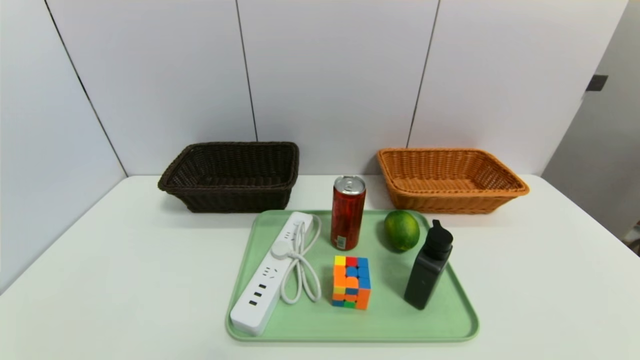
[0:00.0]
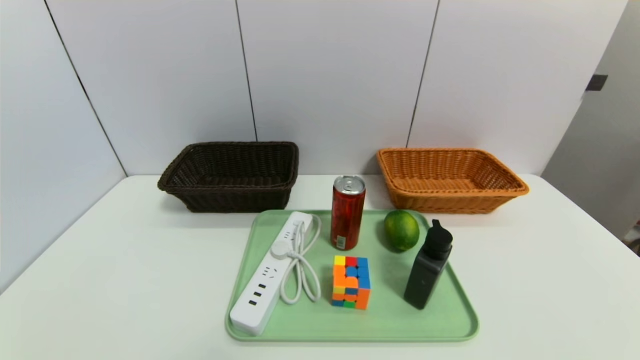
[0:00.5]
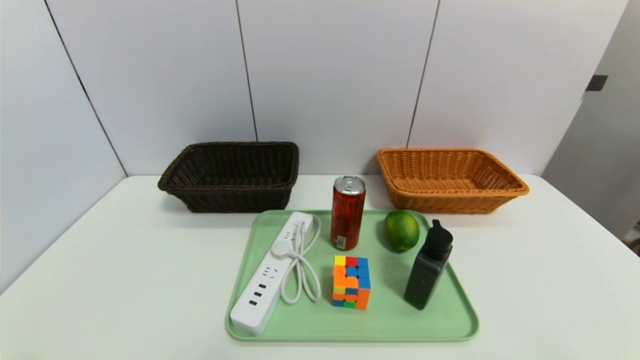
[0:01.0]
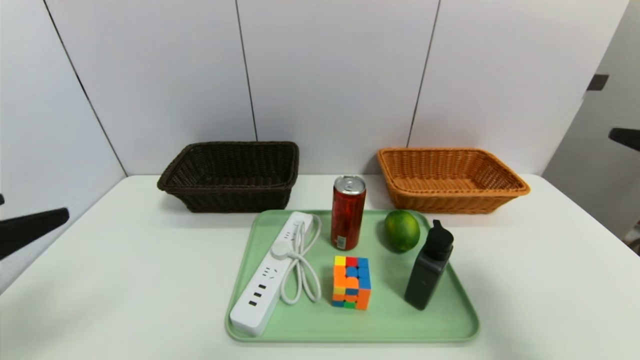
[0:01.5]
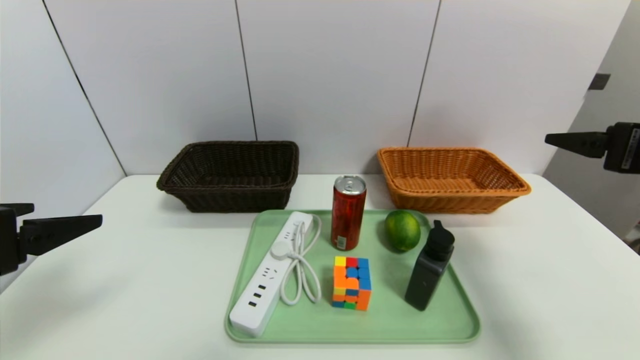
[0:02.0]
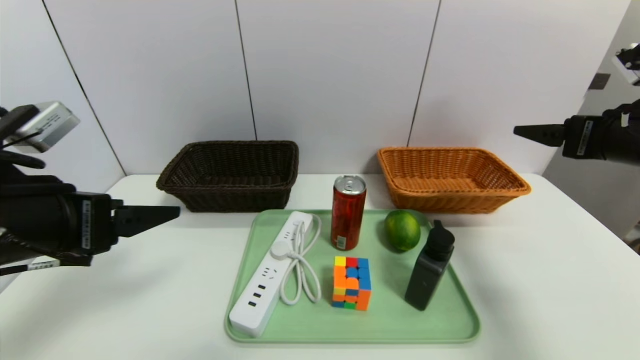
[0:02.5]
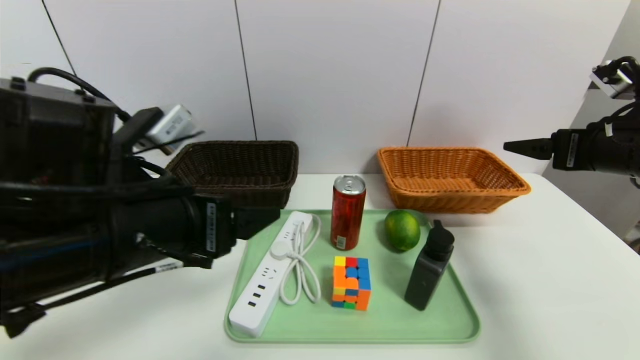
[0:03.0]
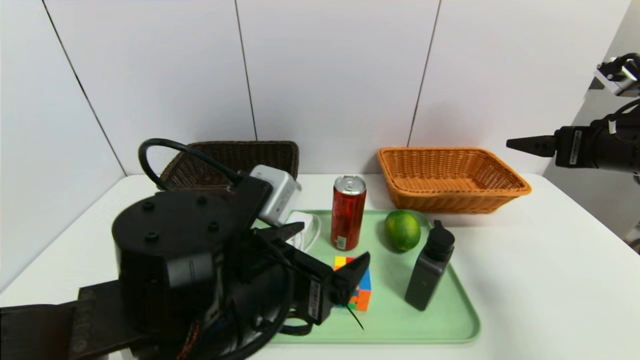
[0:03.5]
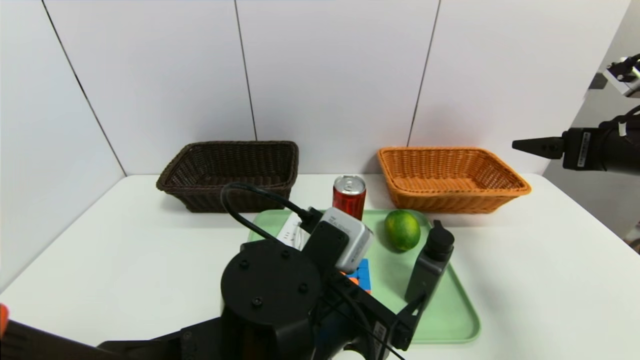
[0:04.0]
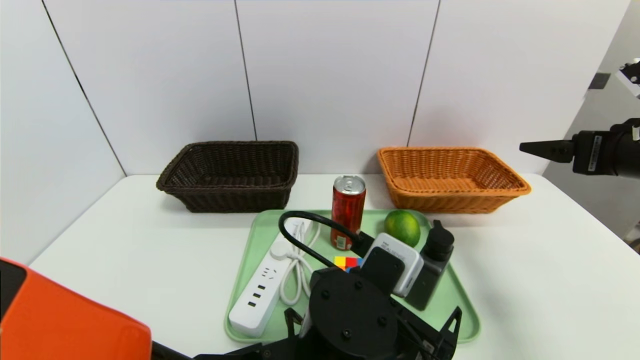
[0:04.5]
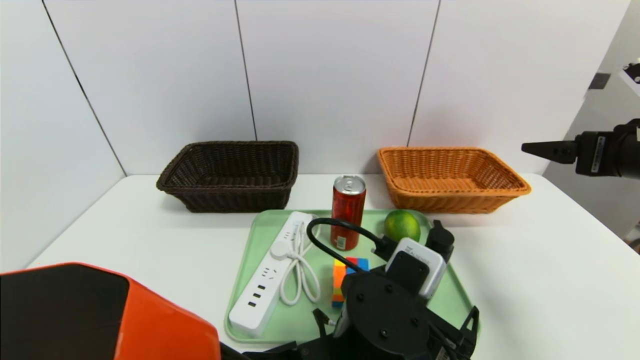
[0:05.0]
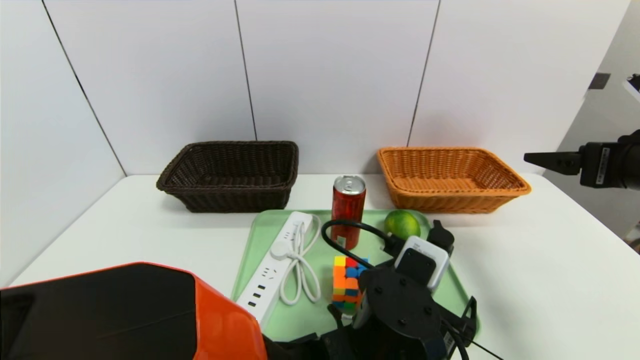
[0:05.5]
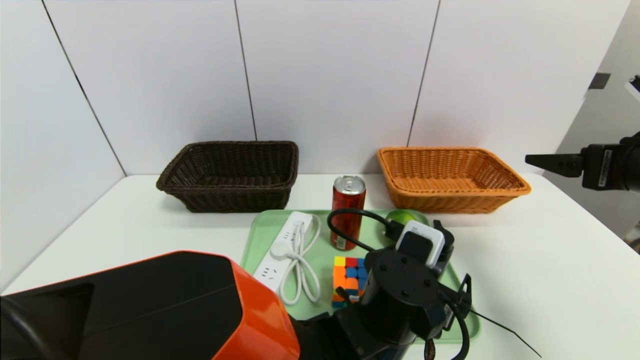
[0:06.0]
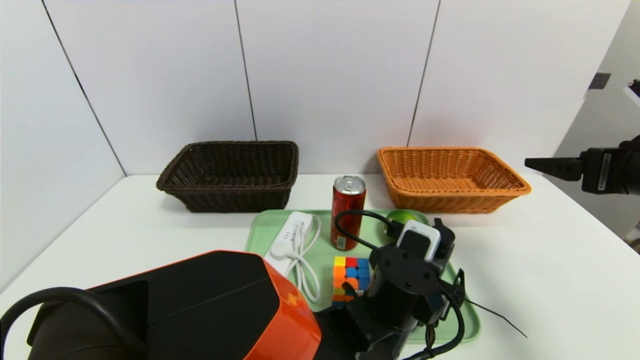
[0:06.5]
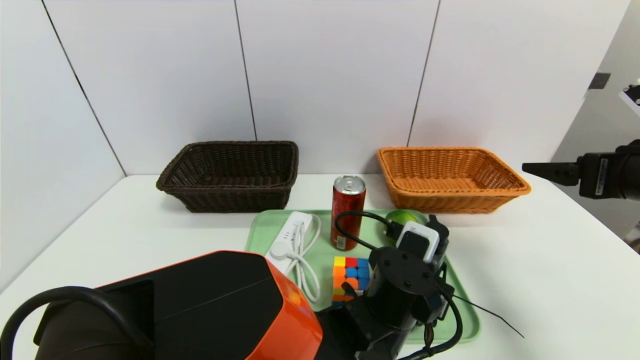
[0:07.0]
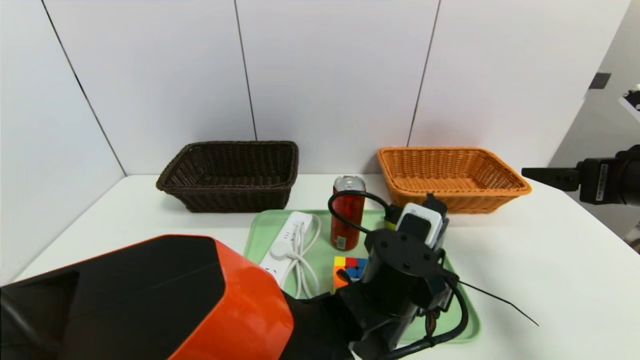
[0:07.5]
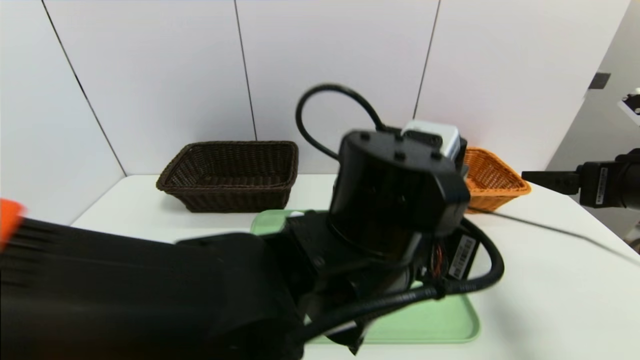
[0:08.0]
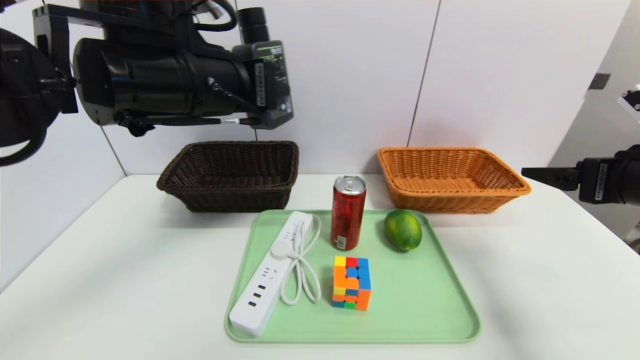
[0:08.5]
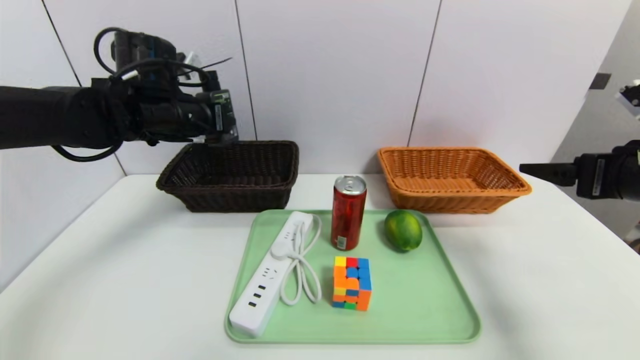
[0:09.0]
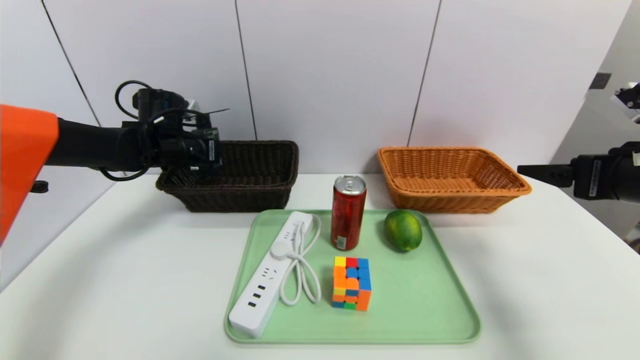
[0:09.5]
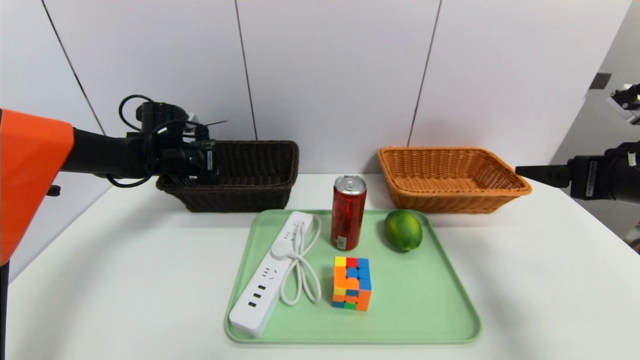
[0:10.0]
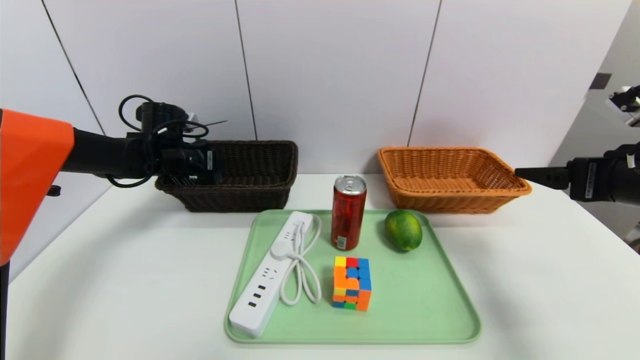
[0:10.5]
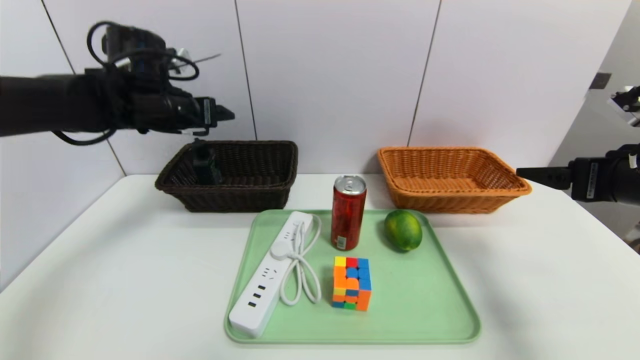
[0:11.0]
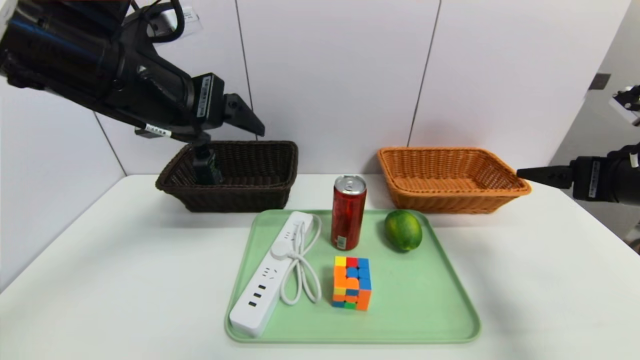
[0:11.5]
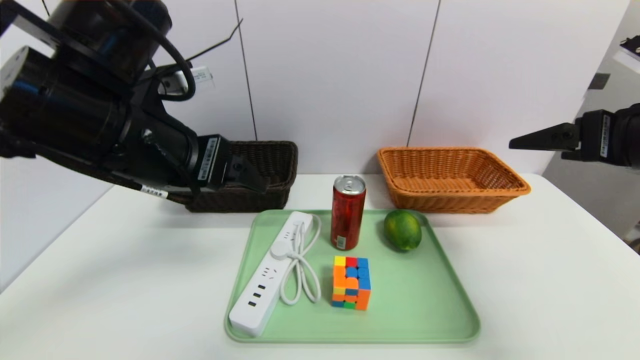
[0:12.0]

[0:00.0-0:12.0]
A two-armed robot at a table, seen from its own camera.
Task of the whole recording: place the food in the right basket with the right gripper, and place the non food items in the left basket with the left gripper.
Step, 0:00.0 to 0:10.5: Grasp the soft cleanser and put it in the left basket.
0:00.0 to 0:02.0: The left gripper travels upward and forward by roughly 25 cm; the right gripper goes about 30 cm forward and upward.
0:02.0 to 0:04.0: The left gripper travels to the right and downward by some 30 cm.
0:04.0 to 0:06.0: The left gripper shifts approximately 15 cm to the right, downward and forward.
0:06.0 to 0:08.0: The left gripper heads upward, covering approximately 15 cm, and closes.
0:08.0 to 0:10.0: The left gripper shifts approximately 40 cm to the left and forward.
0:10.0 to 0:12.0: The right gripper goes some 5 cm upward, while the left gripper shifts roughly 30 cm backward, upward and to the right, and opens its fingers.

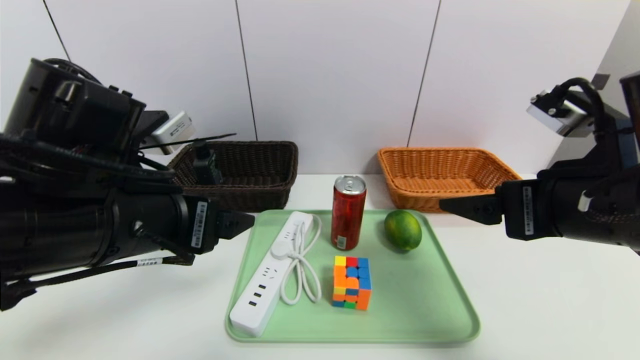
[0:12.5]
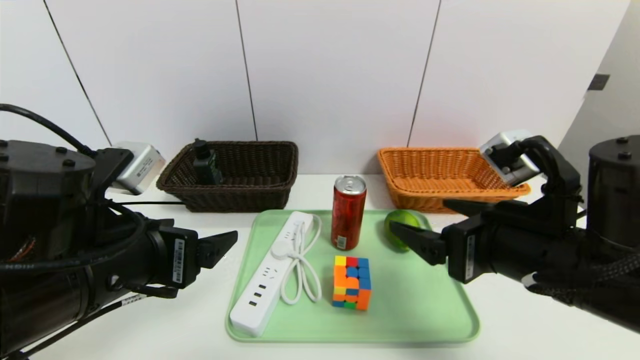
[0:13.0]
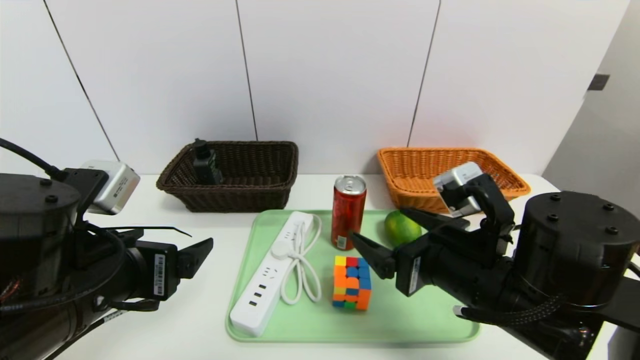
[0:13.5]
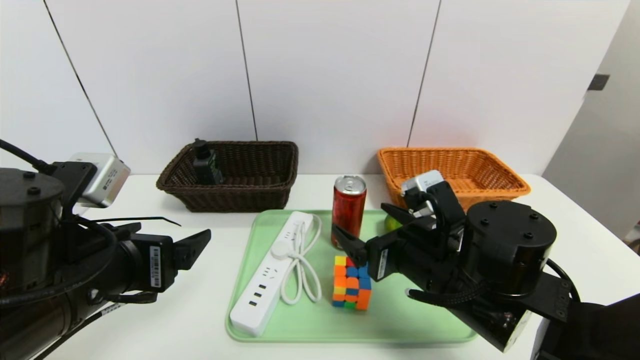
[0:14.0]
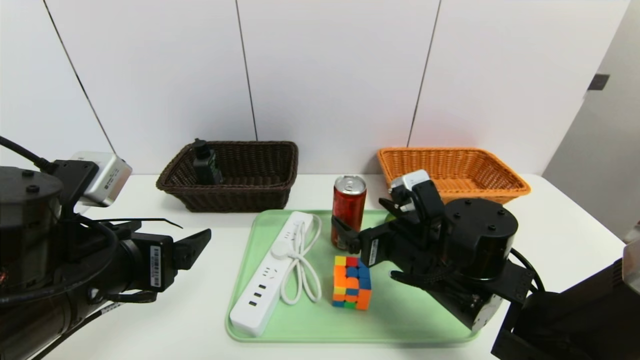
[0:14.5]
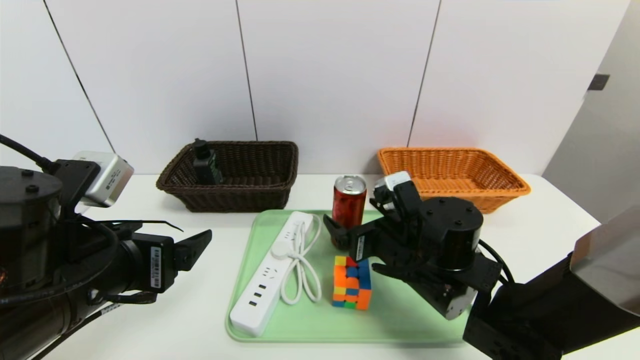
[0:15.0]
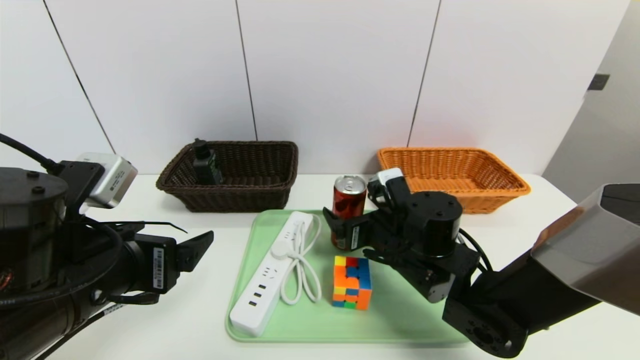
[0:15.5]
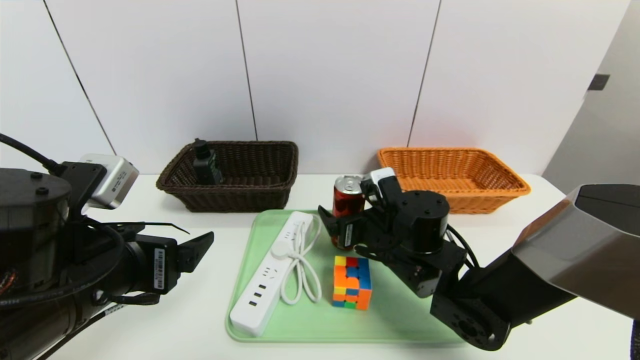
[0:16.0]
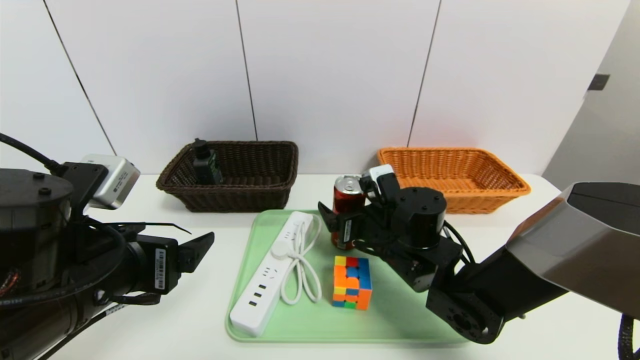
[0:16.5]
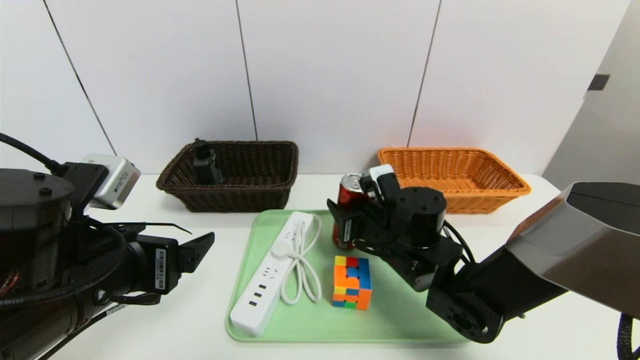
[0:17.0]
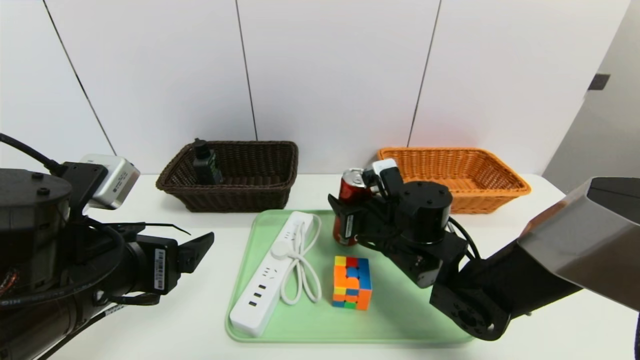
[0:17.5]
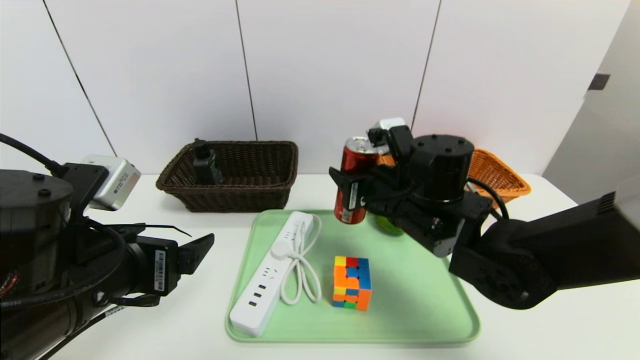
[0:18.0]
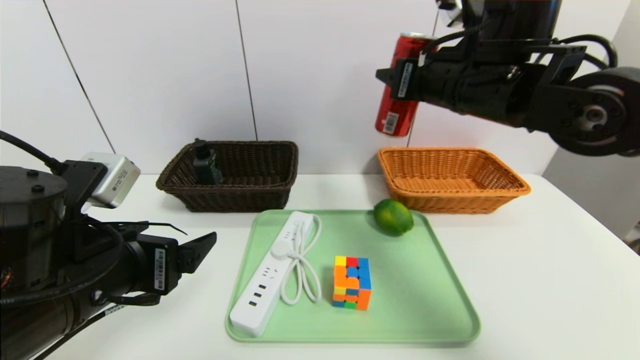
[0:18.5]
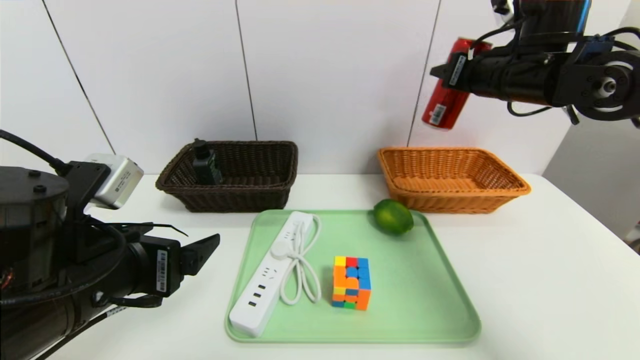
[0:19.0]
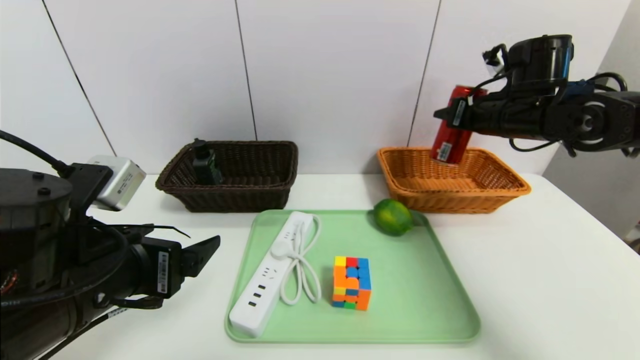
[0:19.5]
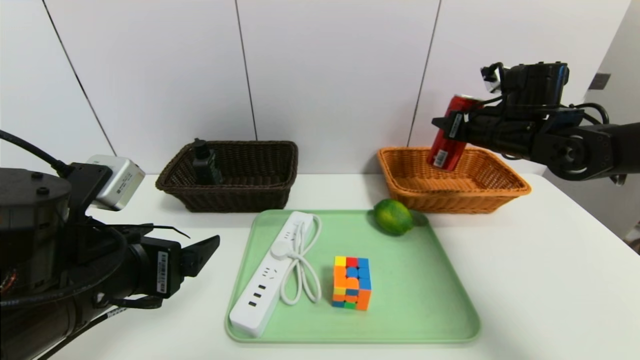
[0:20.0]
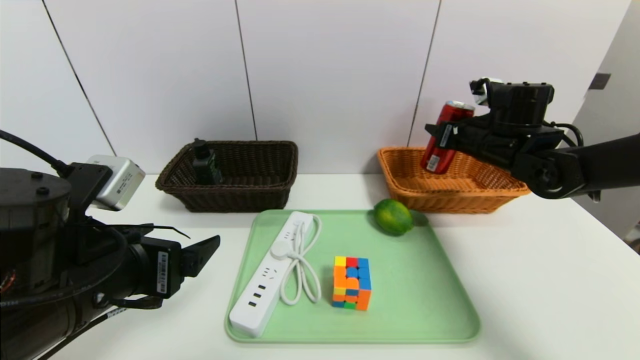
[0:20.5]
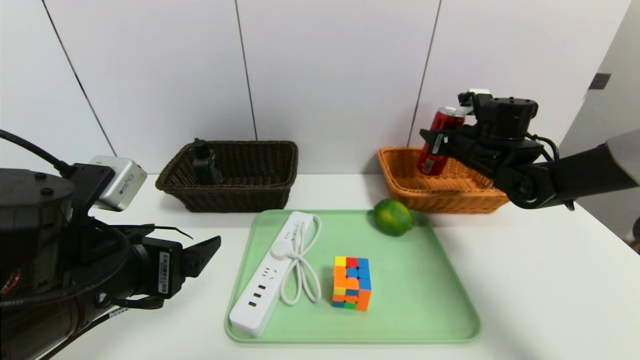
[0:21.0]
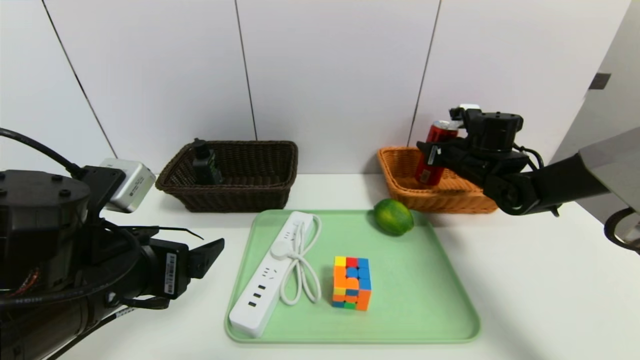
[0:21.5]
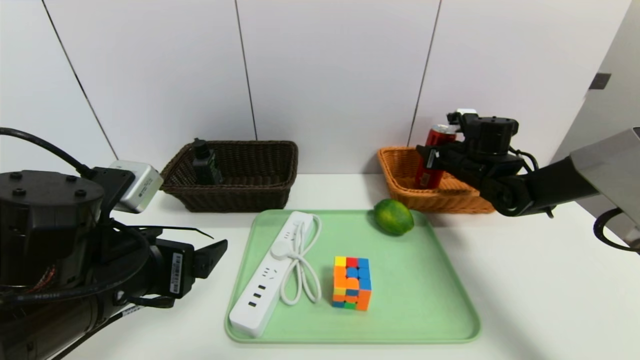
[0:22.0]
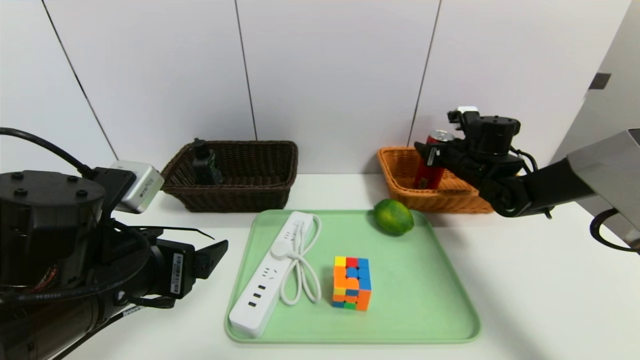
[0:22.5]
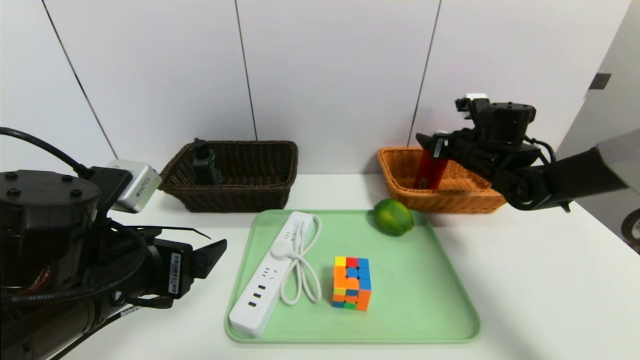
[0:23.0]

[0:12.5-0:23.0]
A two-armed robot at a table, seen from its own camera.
Task of the whole recording: place the food in the right basket with the right gripper, and place the non food items in the left basket with the left gripper.
Step, 0:12.5 to 0:23.0: Grasp the canned cola and put it in the right basket.
0:12.5 to 0:14.5: The right gripper goes approximately 20 cm downward, to the left and forward. The left gripper shifts by roughly 5 cm.
0:14.5 to 0:16.5: The right gripper is displaced forward by roughly 5 cm.
0:16.5 to 0:19.0: The right gripper shifts some 25 cm upward and to the right, and closes up.
0:19.0 to 0:21.0: The right gripper heads downward and forward, covering approximately 15 cm.
0:21.0 to 0:23.0: The right gripper opens.
